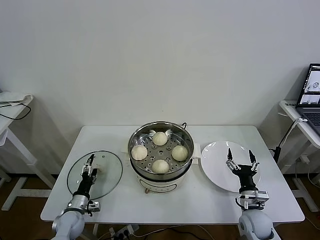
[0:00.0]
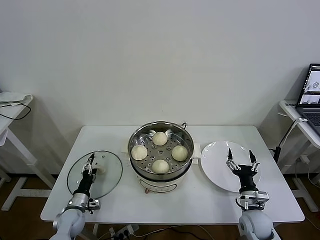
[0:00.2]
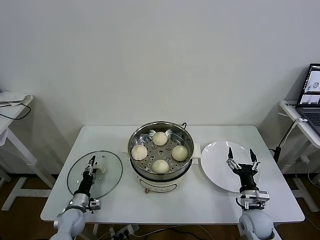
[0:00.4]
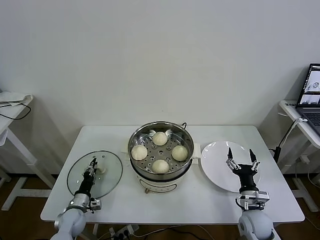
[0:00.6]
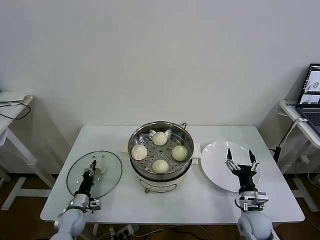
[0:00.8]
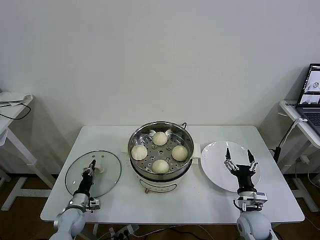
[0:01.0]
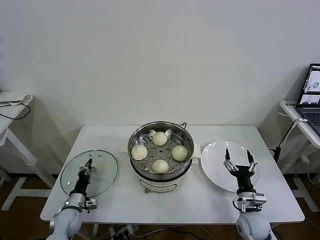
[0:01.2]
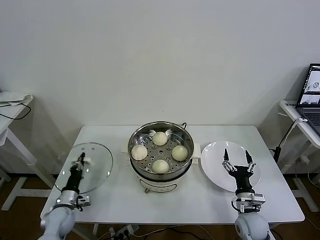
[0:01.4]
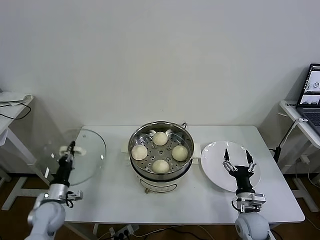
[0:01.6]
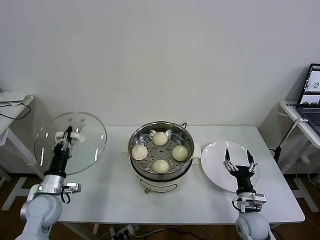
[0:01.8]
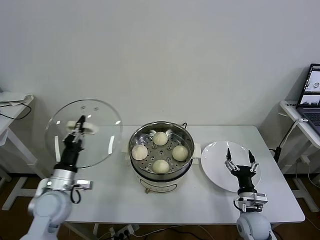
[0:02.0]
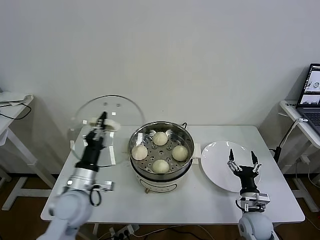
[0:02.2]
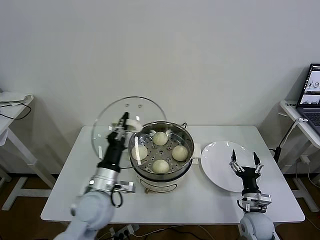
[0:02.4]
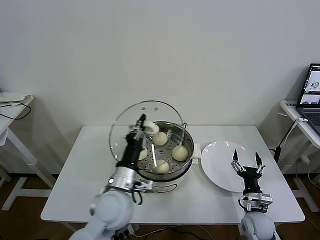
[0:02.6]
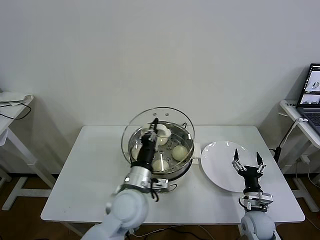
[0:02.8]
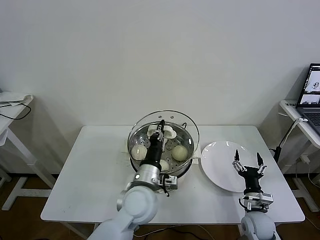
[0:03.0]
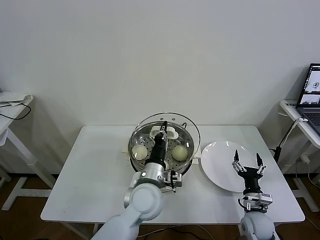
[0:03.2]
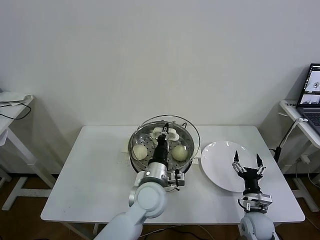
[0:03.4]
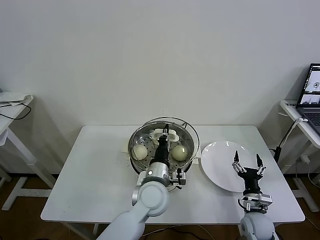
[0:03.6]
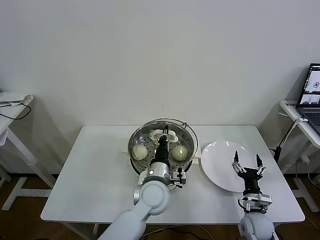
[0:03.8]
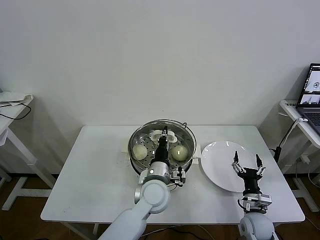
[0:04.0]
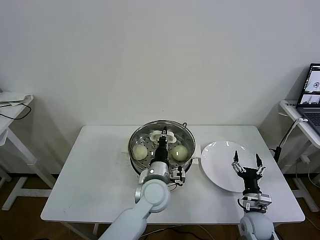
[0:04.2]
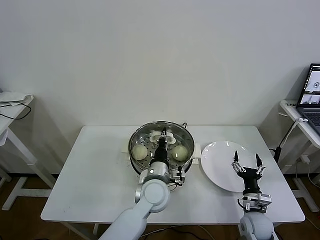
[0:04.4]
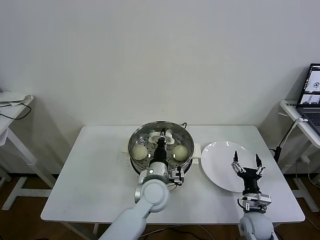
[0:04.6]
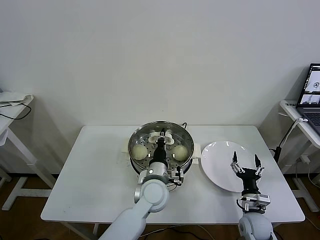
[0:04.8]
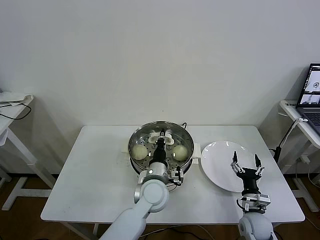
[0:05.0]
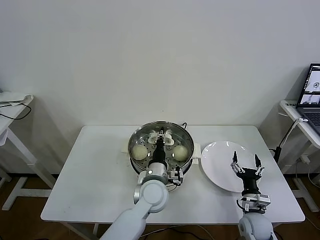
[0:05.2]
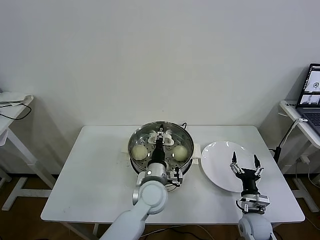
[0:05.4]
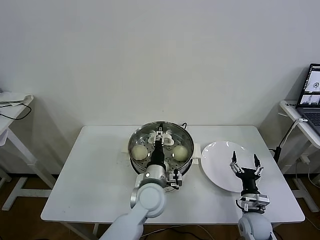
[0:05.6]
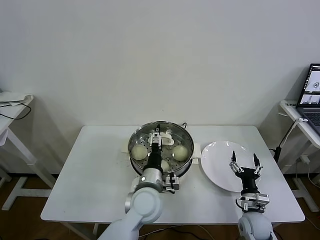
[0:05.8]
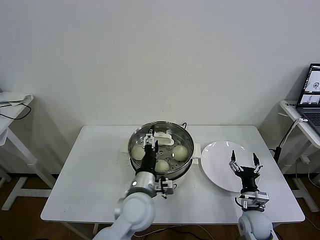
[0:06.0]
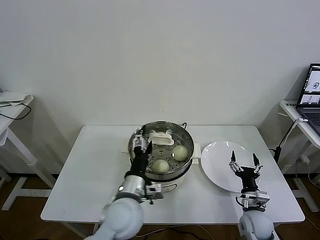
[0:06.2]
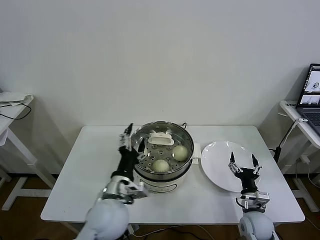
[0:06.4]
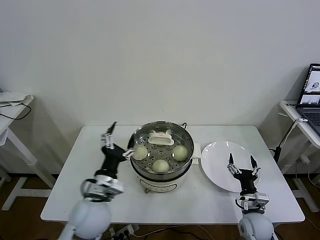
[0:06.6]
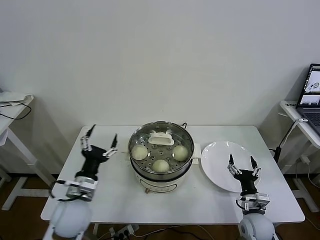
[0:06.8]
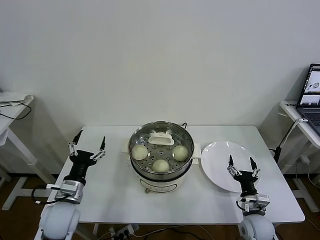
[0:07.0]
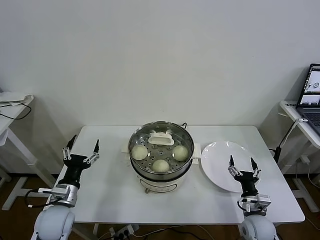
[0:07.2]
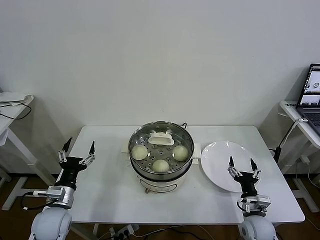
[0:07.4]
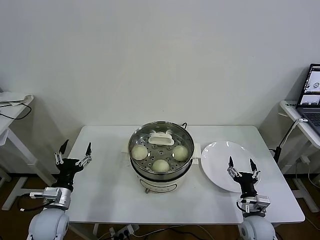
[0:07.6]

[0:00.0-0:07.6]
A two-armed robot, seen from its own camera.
Task of the whole recording: take steamed baozi put them in steamer then cover it.
Step, 0:01.2 to 0:05.8: Place the pot lid on the steamer with left gripper.
0:00.0 to 0:01.6: The left gripper moves upward, some 10 cm, and closes its fingers.
0:01.6 to 0:03.0: The left gripper shifts approximately 35 cm to the right and upward.
0:03.0 to 0:04.6: The left gripper travels downward by approximately 5 cm.
0:04.6 to 0:06.0: The left gripper shifts by approximately 5 cm, and opens.
0:06.0 to 0:07.6: The left gripper heads to the left, covering about 25 cm.

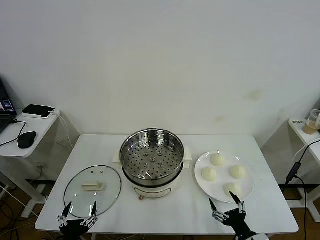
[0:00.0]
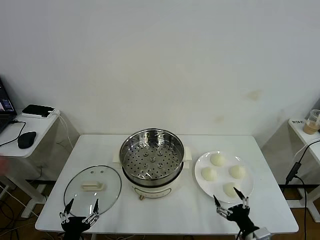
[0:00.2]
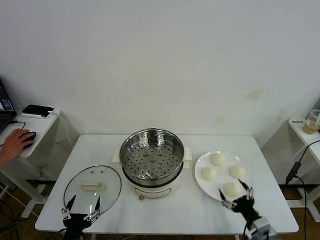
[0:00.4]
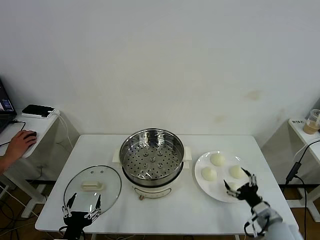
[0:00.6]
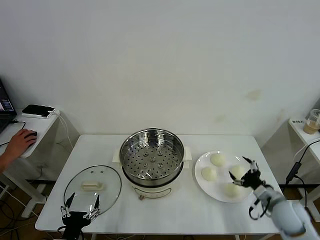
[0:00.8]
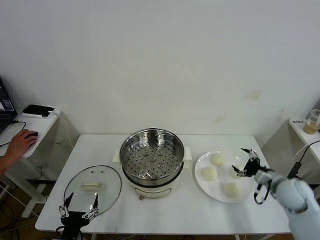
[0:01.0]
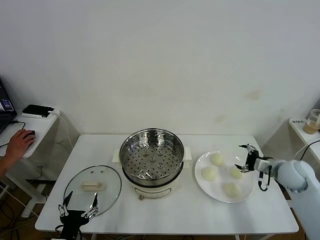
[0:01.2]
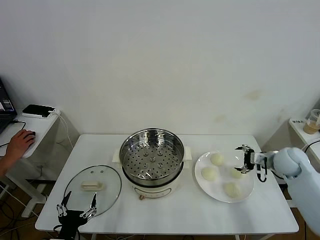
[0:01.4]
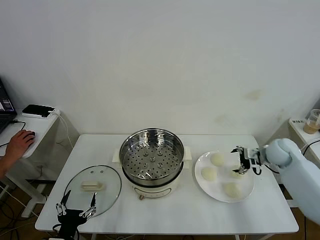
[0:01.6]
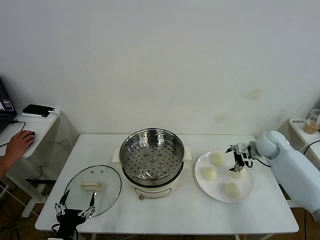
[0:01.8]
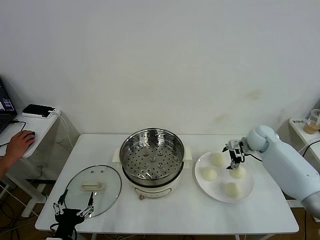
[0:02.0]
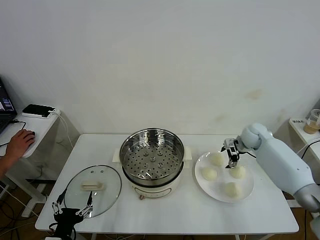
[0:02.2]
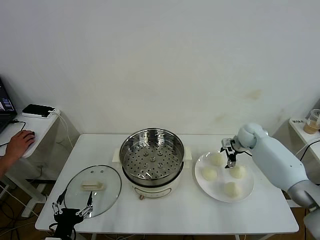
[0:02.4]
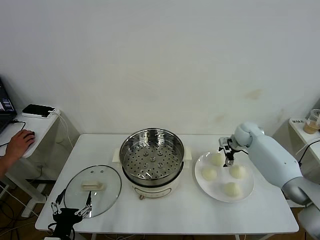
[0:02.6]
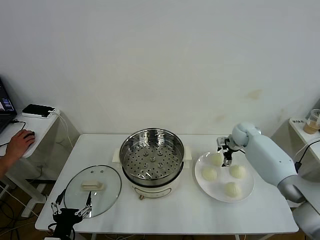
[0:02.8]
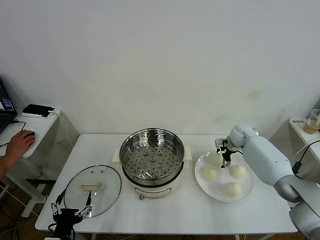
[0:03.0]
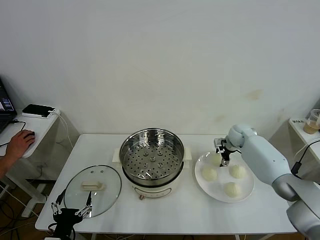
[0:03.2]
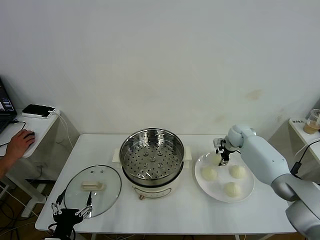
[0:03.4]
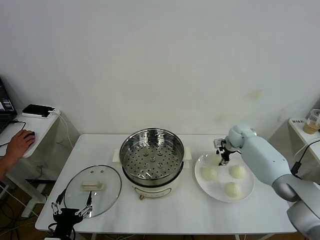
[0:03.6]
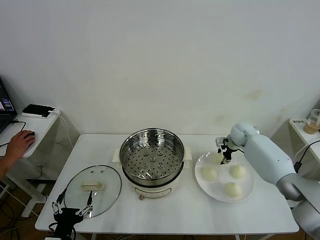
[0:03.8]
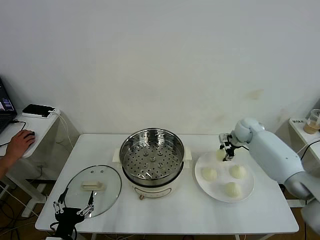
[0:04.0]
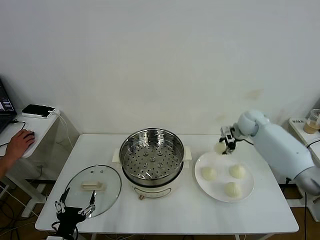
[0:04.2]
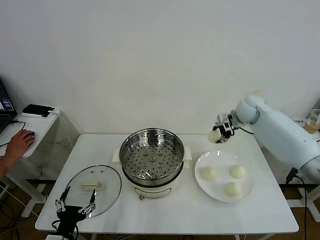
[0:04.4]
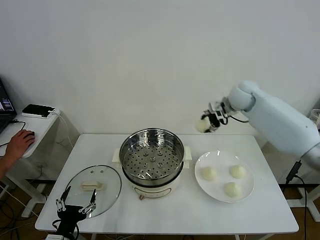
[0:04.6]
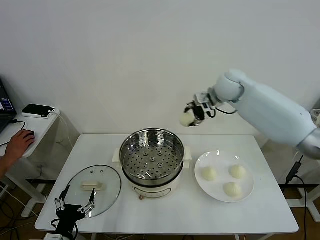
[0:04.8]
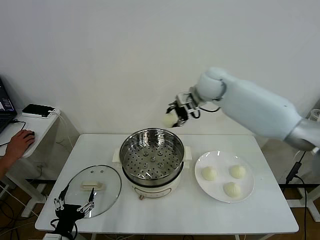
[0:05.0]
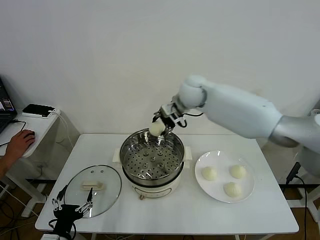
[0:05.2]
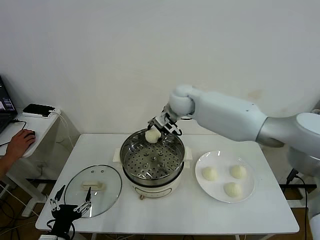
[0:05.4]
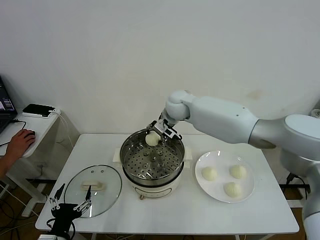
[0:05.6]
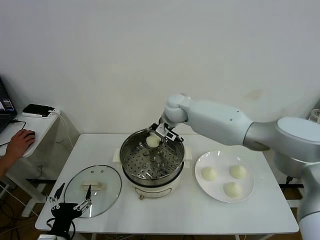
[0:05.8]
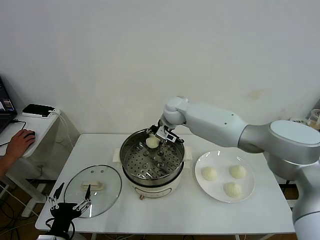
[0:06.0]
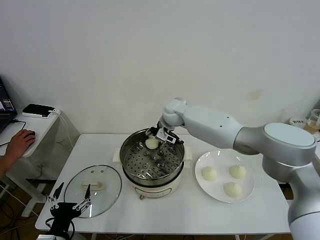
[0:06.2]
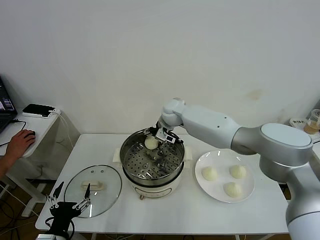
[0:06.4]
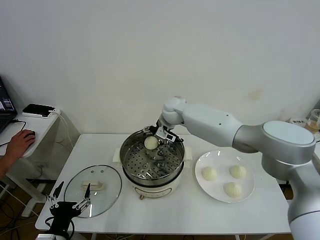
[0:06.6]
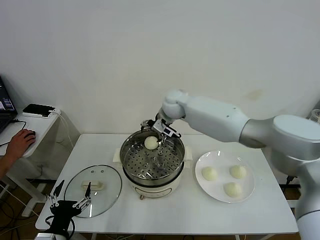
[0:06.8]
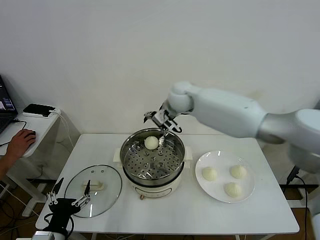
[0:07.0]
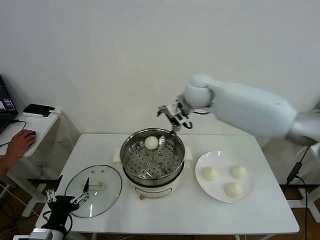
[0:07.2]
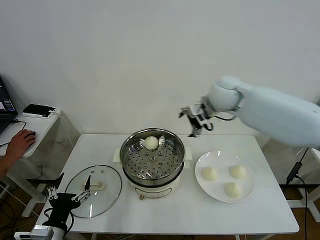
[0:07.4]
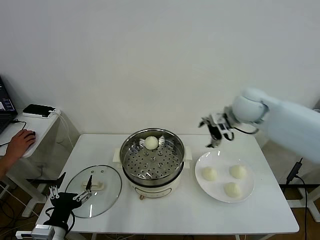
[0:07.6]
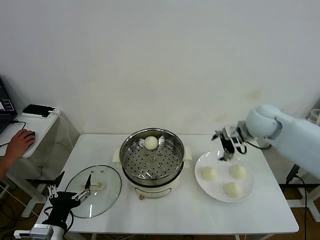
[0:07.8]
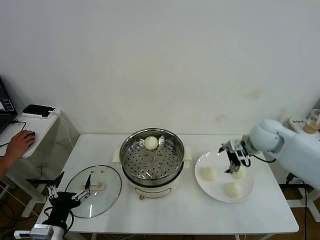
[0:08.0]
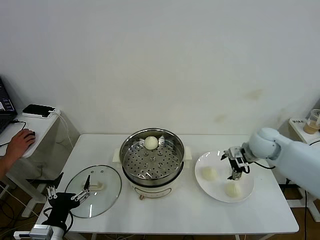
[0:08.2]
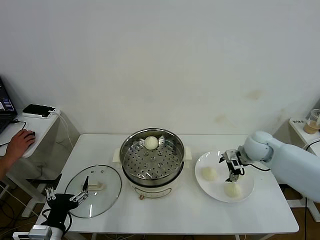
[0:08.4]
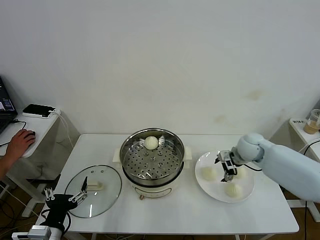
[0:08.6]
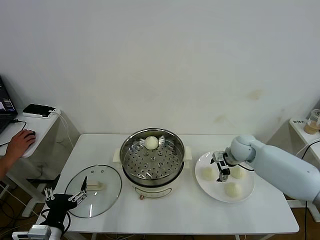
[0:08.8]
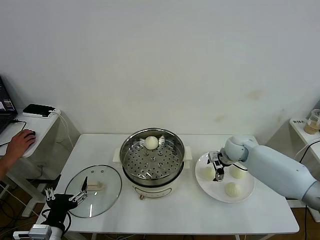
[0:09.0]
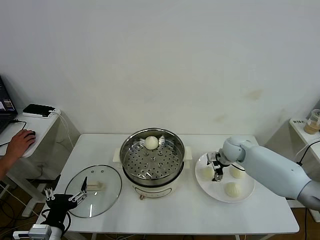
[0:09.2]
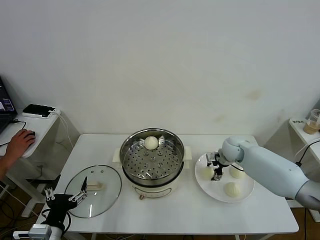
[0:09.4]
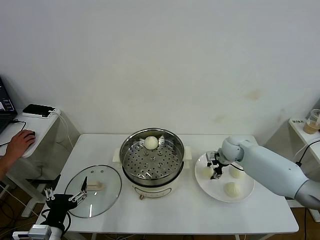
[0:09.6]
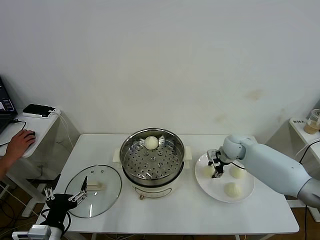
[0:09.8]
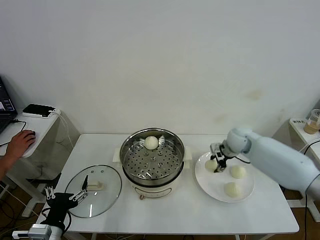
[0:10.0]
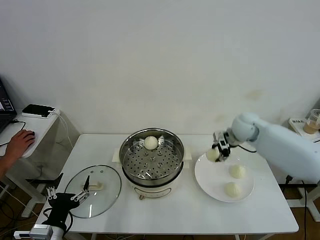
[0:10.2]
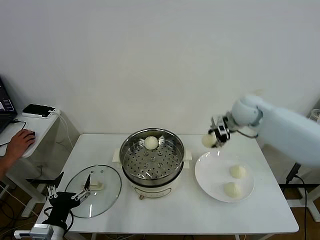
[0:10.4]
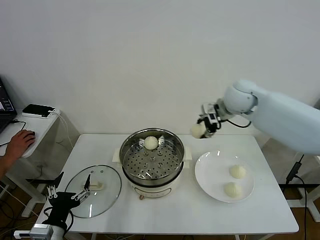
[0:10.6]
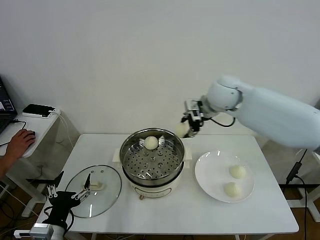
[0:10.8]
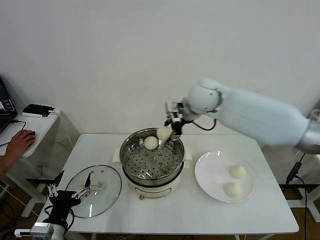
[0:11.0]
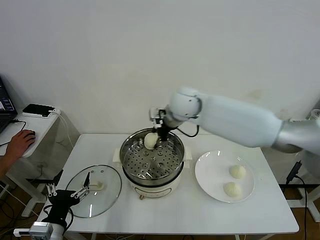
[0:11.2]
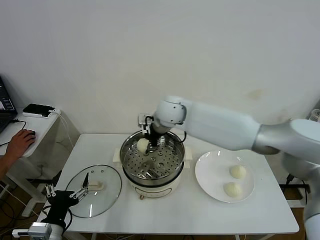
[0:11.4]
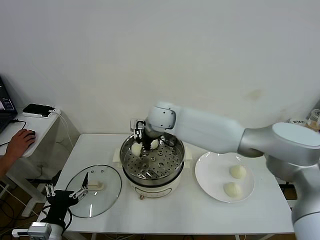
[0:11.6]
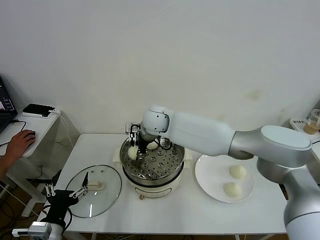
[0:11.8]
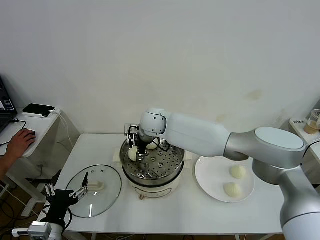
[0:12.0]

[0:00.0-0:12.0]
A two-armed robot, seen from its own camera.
Task of the whole recording: take steamed baozi put them in steamer then cover it.
Step, 0:00.0 to 0:03.4: Grasp the baozi in the plate with right gripper.
Step, 0:03.6 to 0:06.4: Place the baozi on the steamer with right gripper.
Step, 0:06.8 to 0:09.6: Grasp the baozi in the plate with right gripper.
0:01.6 to 0:03.0: The right gripper travels forward and to the left by roughly 10 cm.
0:03.0 to 0:04.4: The right gripper travels upward by about 20 cm, and closes its fingers.
0:04.4 to 0:06.0: The right gripper heads to the left, covering approximately 25 cm.
0:06.0 to 0:07.6: The right gripper is displaced to the right and backward by about 25 cm, and opens up.
0:07.6 to 0:09.0: The right gripper travels downward by about 20 cm.
0:09.0 to 0:10.4: The right gripper goes some 20 cm upward, and closes its fingers.
0:10.4 to 0:12.0: The right gripper shifts some 30 cm to the left, and opens.

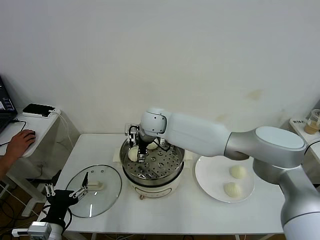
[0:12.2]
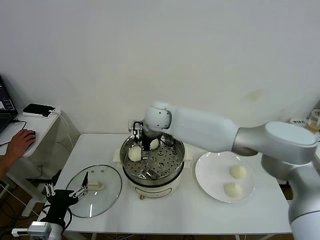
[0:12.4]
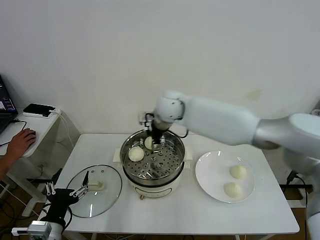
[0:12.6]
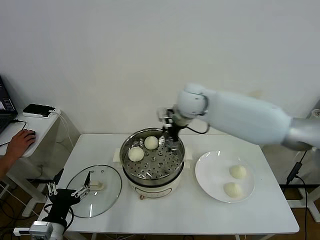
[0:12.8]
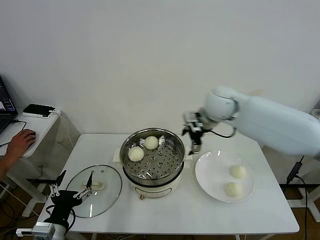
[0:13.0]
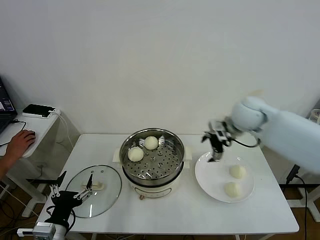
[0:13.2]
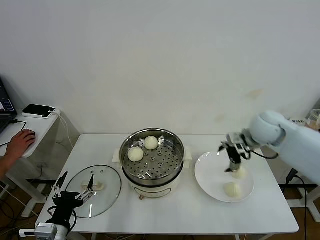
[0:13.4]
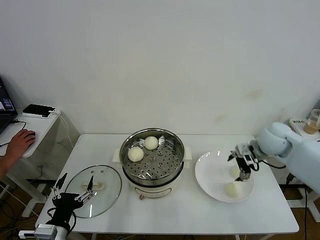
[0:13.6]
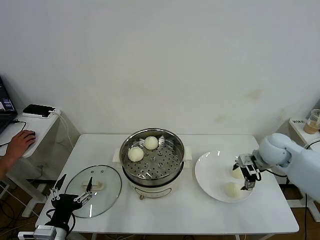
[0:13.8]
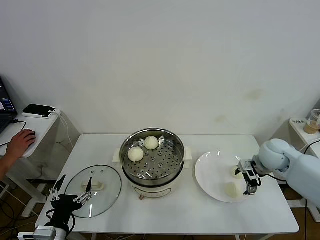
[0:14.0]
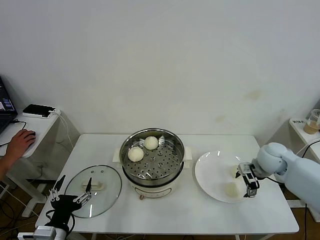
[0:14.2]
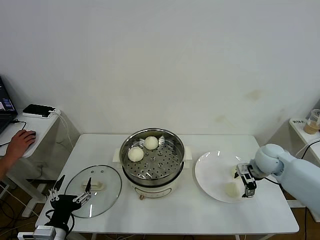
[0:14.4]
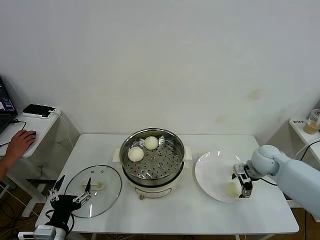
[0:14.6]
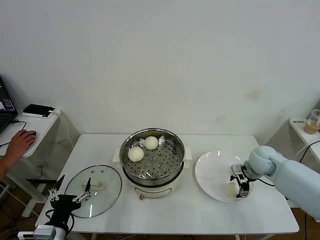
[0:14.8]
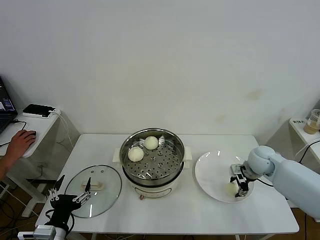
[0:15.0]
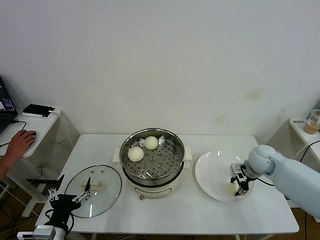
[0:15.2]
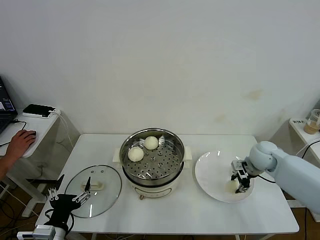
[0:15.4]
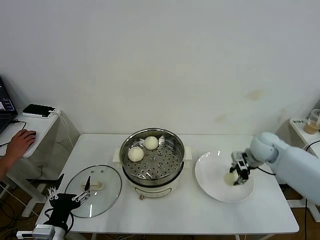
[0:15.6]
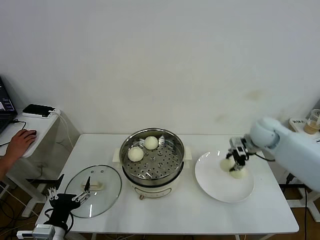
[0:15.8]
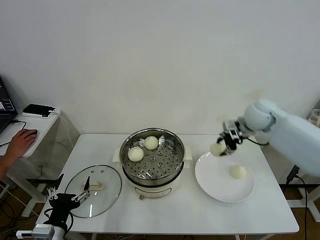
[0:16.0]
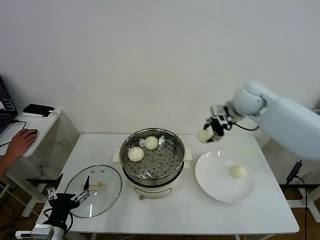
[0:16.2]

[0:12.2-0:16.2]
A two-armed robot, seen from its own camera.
Task of the whole recording: take steamed baozi put them in steamer then cover it.
Step, 0:12.4 to 0:15.2: Grasp the baozi in the plate with right gripper.
0:12.2 to 0:13.6: The right gripper heads to the right, covering roughly 40 cm.
0:13.6 to 0:14.8: The right gripper shifts about 10 cm downward, and closes up.
0:14.8 to 0:16.2: The right gripper travels upward and to the left by approximately 25 cm, and closes its fingers.
